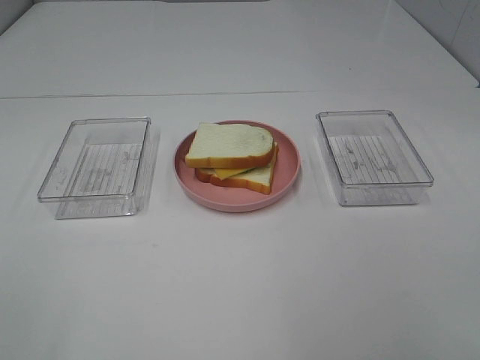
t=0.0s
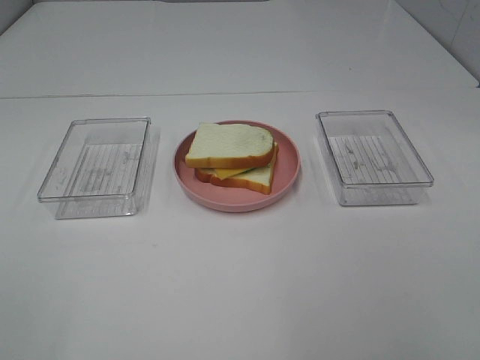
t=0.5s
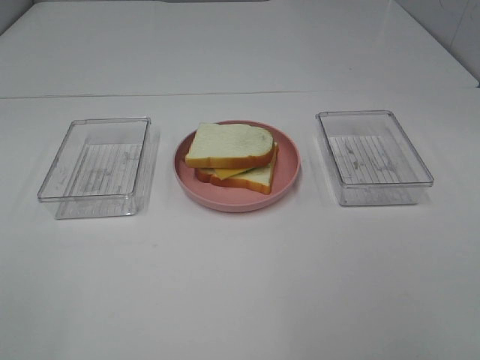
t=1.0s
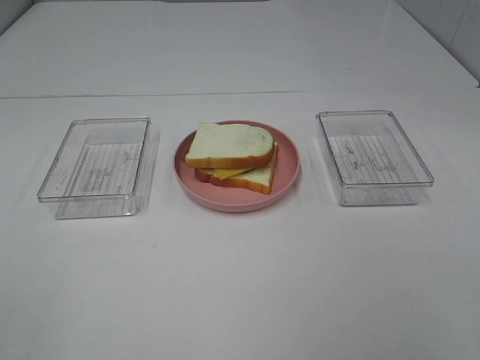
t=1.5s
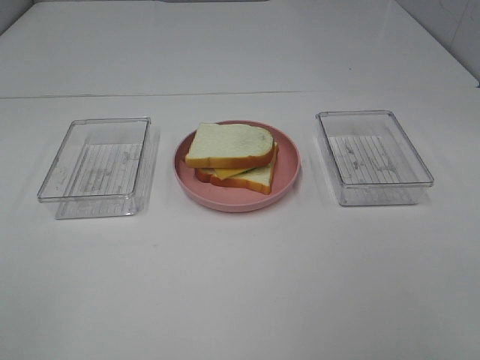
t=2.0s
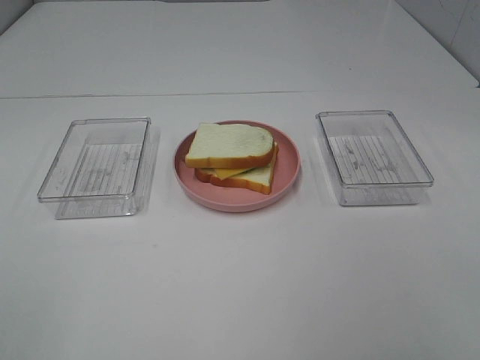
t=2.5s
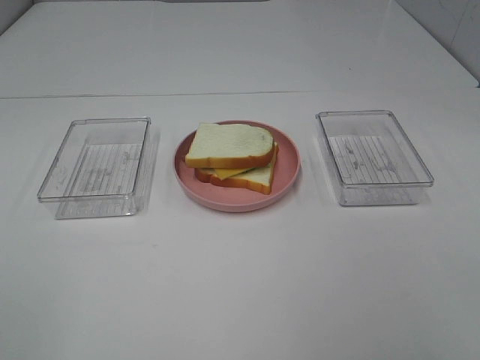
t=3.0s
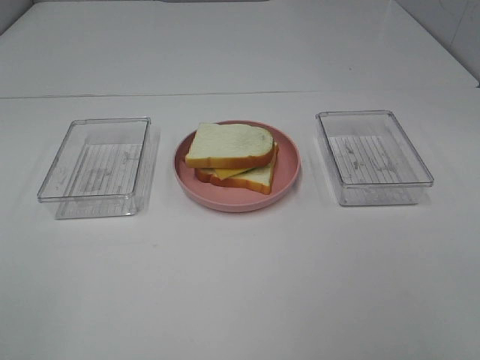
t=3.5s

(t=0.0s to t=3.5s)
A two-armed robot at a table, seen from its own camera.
Task of the whole recording: Make sandwiches.
t=2.0s - t=3.5s: The two grippers keep their place.

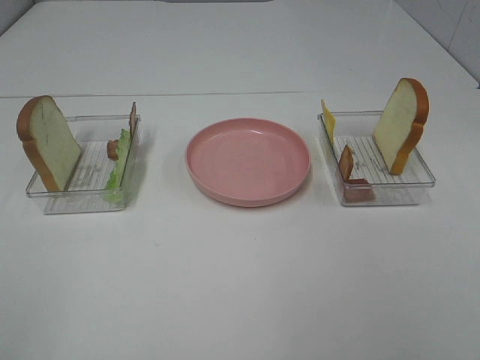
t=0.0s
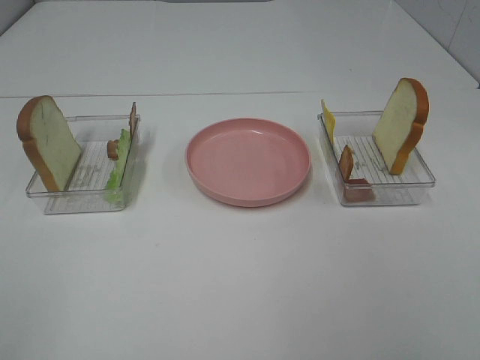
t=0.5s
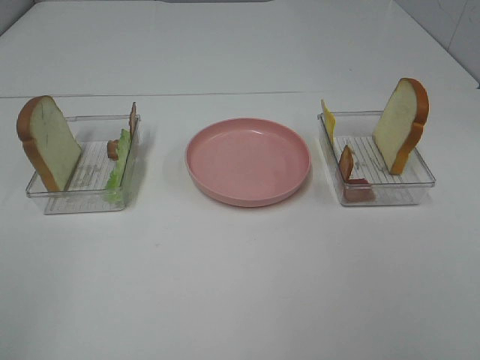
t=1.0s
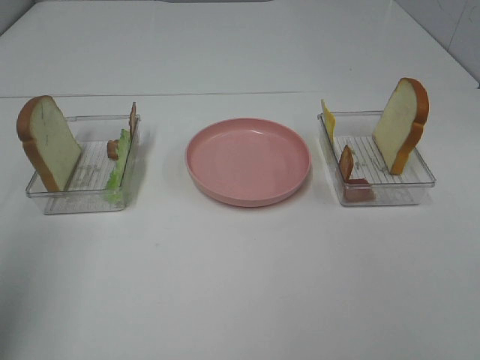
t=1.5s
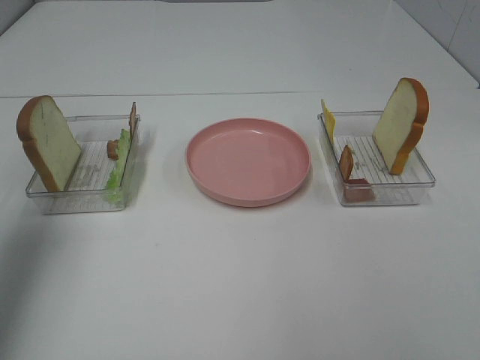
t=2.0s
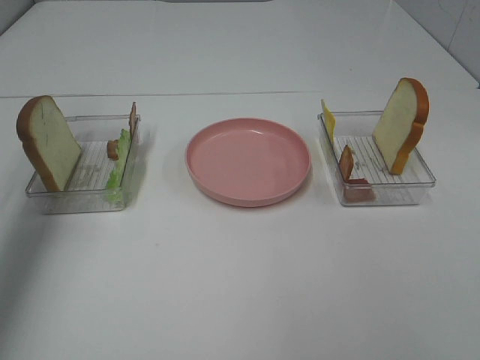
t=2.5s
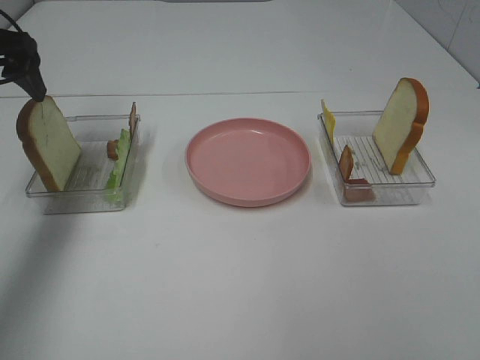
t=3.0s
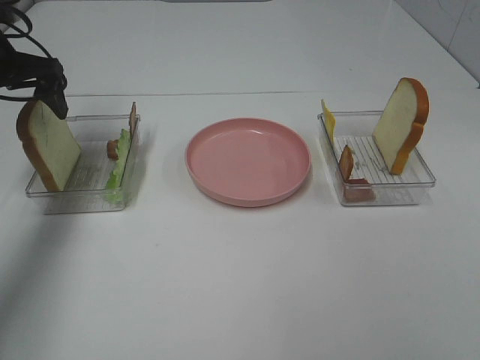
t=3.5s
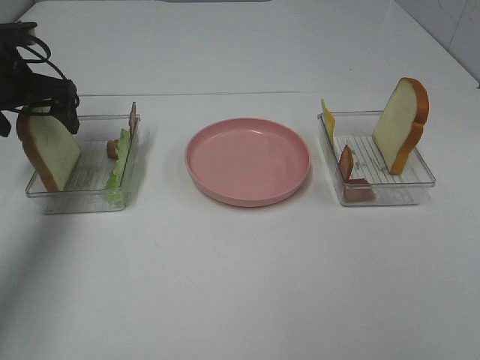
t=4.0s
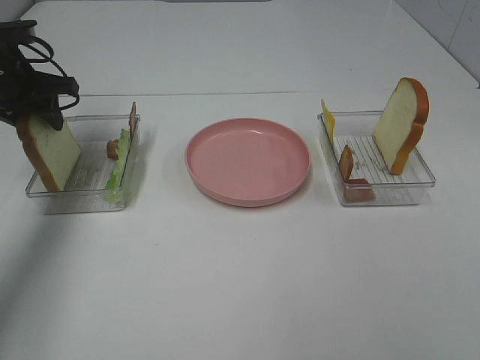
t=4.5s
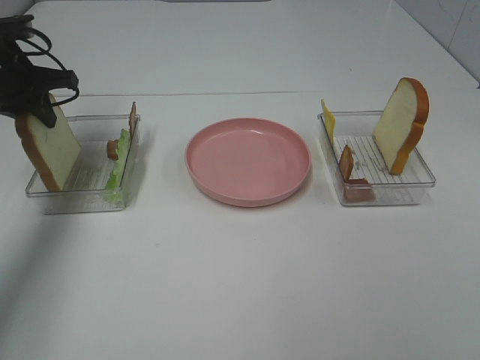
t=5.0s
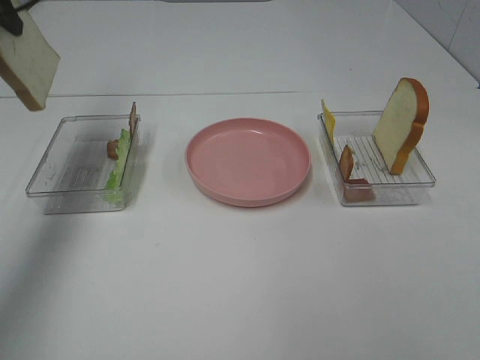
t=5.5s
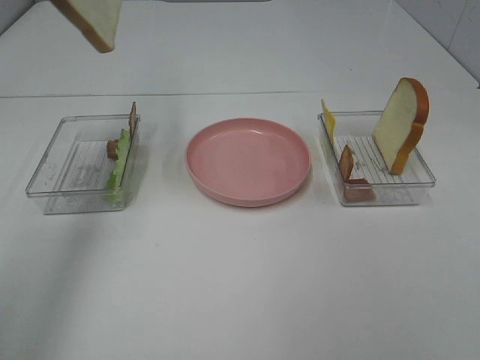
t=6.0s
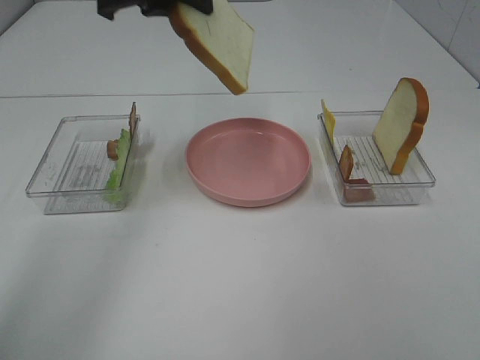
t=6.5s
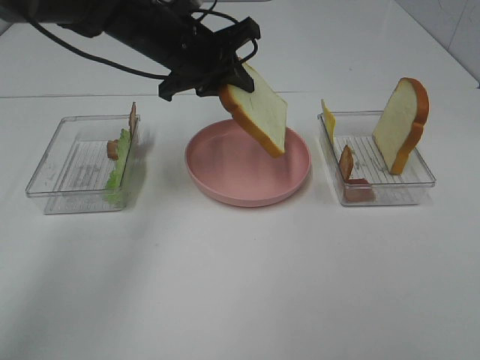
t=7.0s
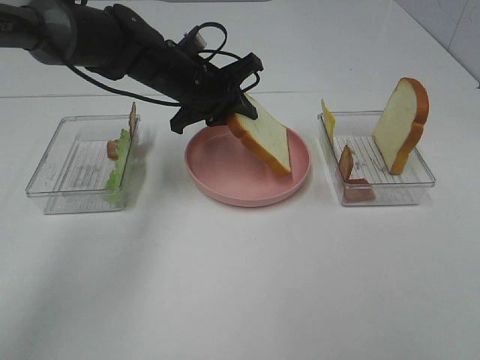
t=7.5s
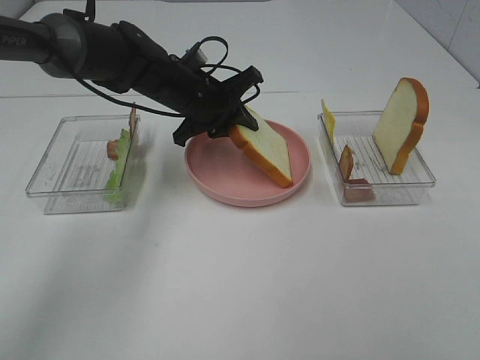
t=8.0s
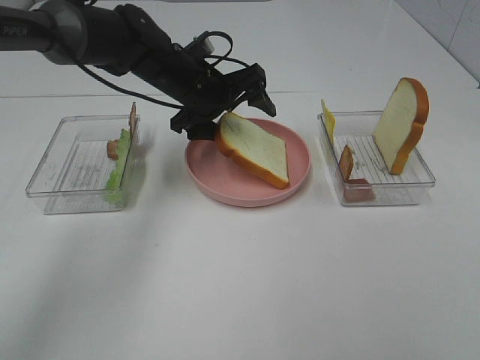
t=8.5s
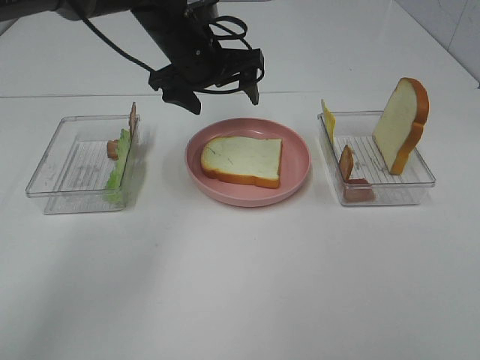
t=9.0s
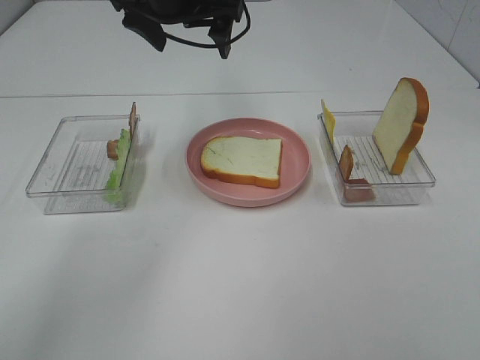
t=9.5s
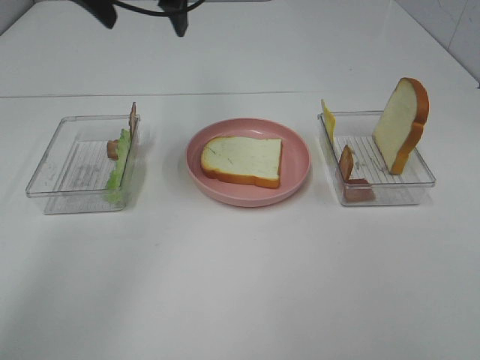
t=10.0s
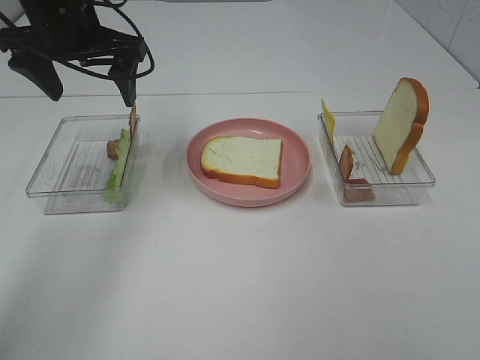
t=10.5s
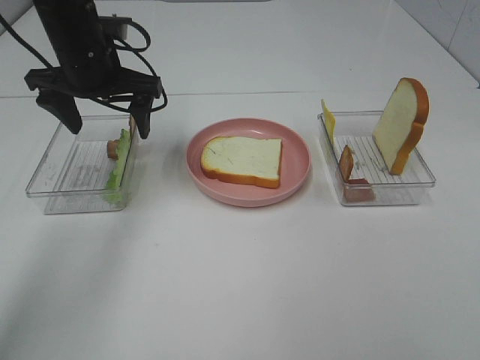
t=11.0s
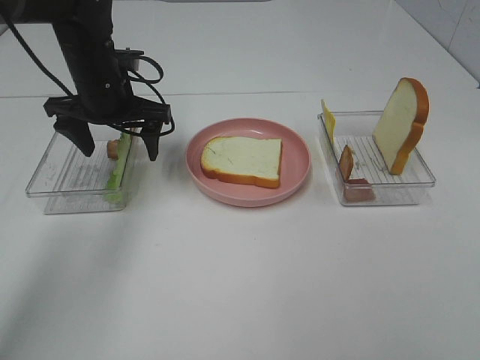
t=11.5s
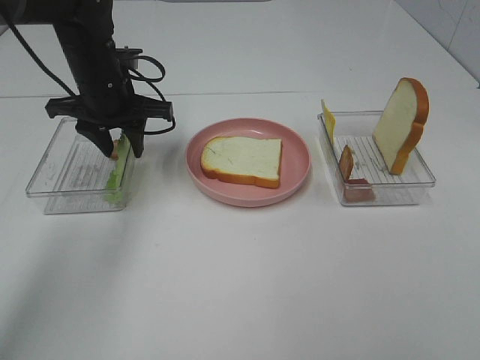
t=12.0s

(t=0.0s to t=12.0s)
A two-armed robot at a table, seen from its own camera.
Task of the whole recording: Make sandwiches.
Step, t=0.0s - t=4.5s: Left hand:grab the bread slice.
Step, t=5.0s - t=9.0s: Left hand:place the bread slice on the plate.
t=0.0s - t=2.0s: The left gripper travels forward by approximately 25 cm.
t=2.0s - t=4.0s: The left gripper moves forward and downward, some 25 cm.
t=4.0s - t=6.0s: The left gripper is displaced upward and to the right by roughly 20 cm, and closes.
t=6.0s - t=8.0s: The left gripper heads downward and to the right, covering some 30 cm.
t=8.0s - t=10.0s: The left gripper travels upward by about 20 cm, and opens.
t=10.0s - t=12.0s: The left gripper travels downward by roughly 15 cm, and closes.

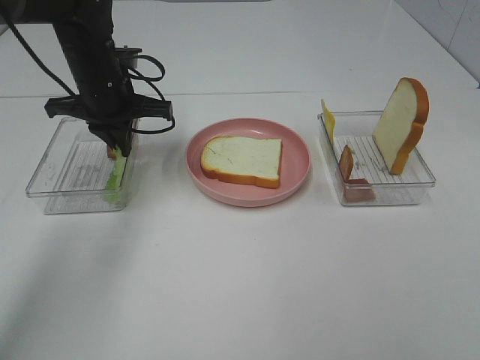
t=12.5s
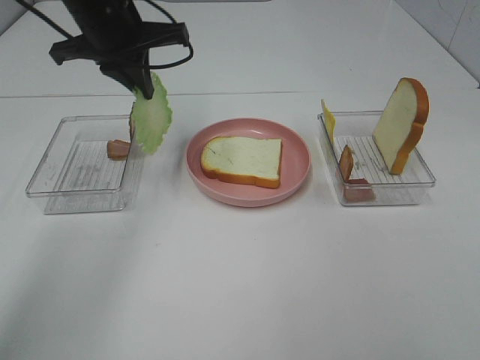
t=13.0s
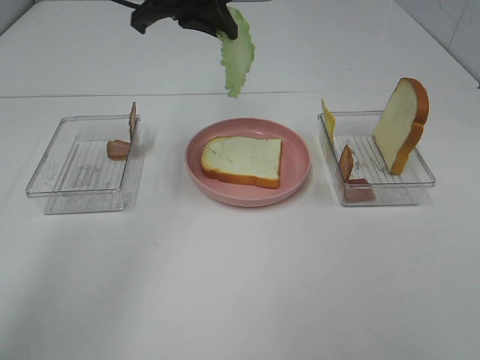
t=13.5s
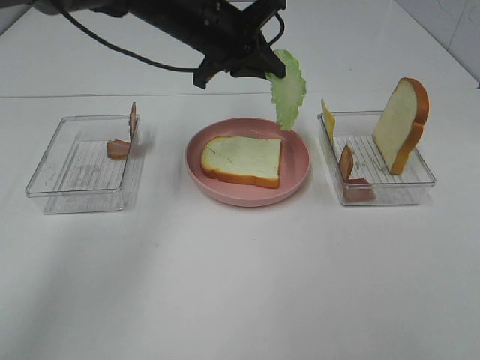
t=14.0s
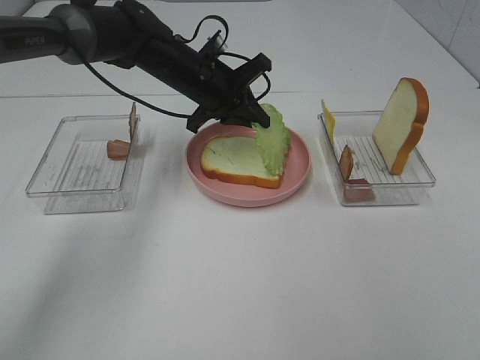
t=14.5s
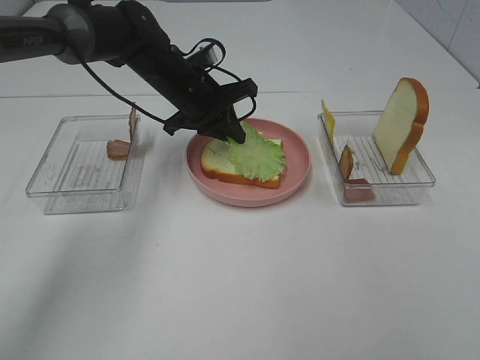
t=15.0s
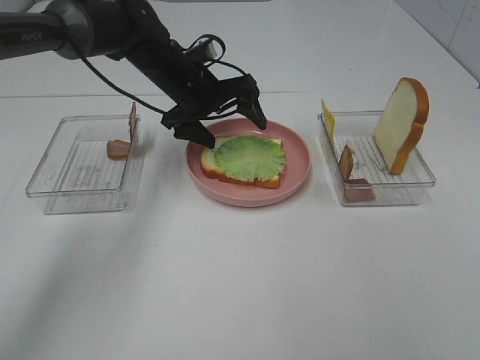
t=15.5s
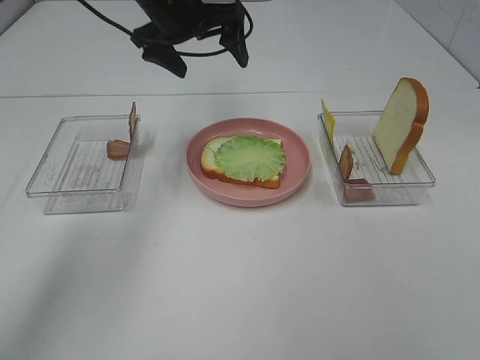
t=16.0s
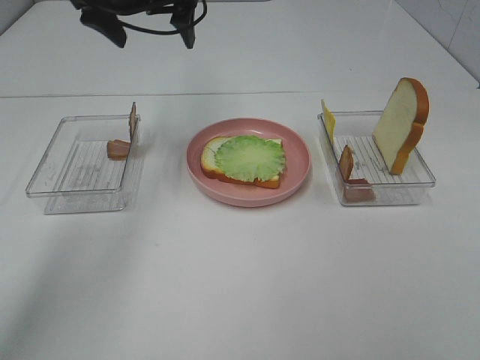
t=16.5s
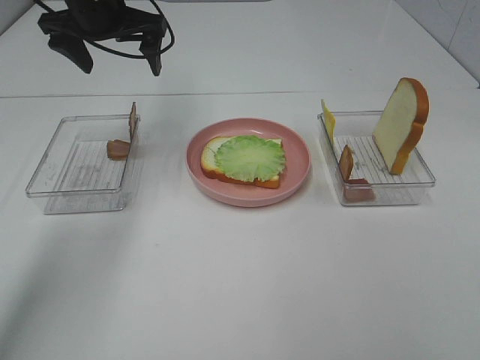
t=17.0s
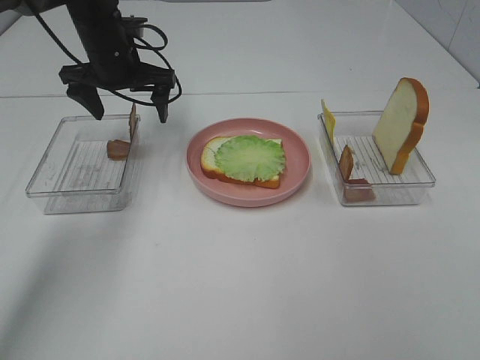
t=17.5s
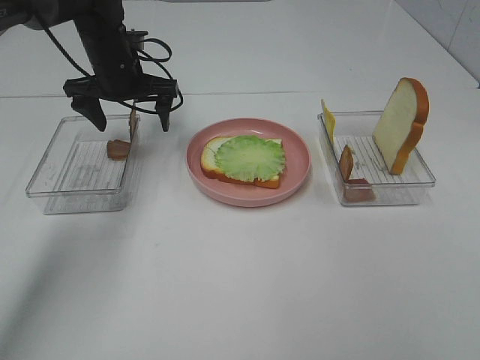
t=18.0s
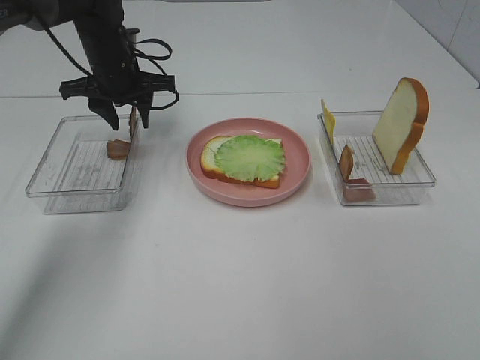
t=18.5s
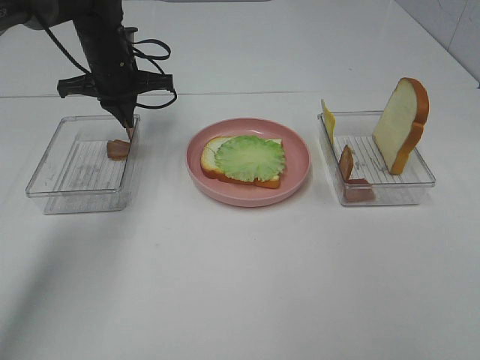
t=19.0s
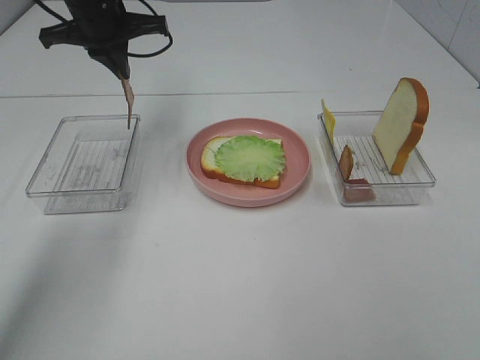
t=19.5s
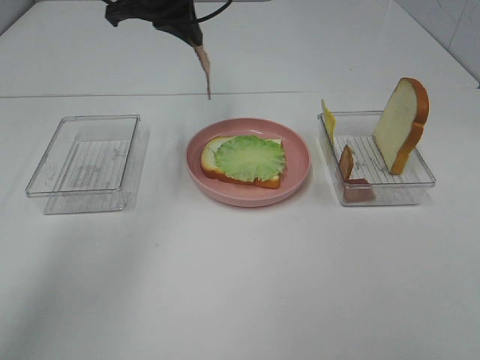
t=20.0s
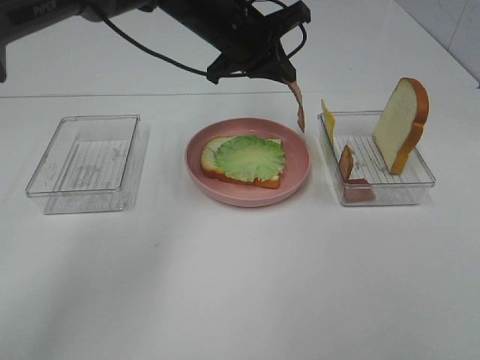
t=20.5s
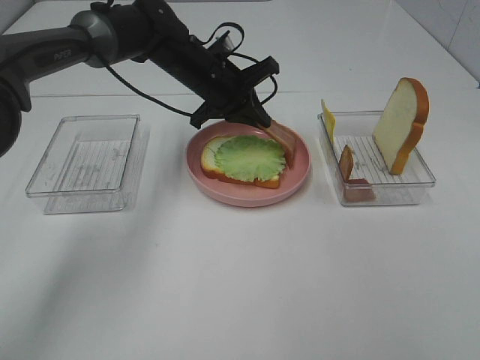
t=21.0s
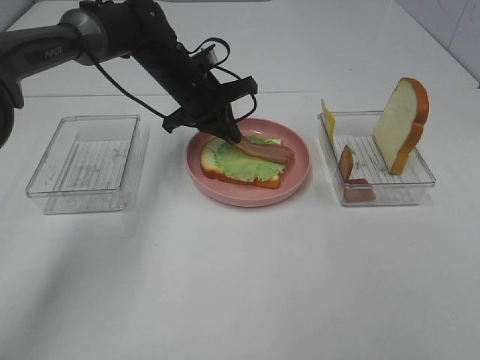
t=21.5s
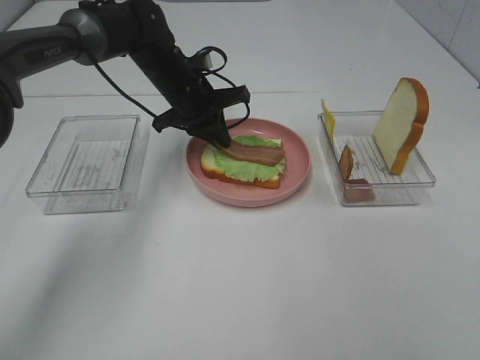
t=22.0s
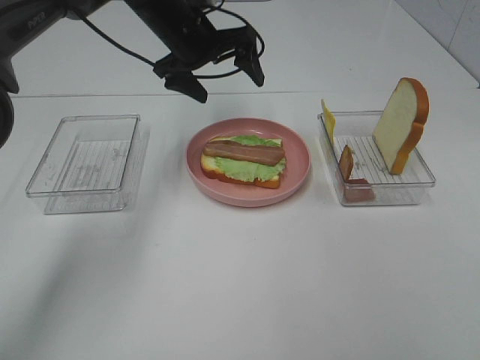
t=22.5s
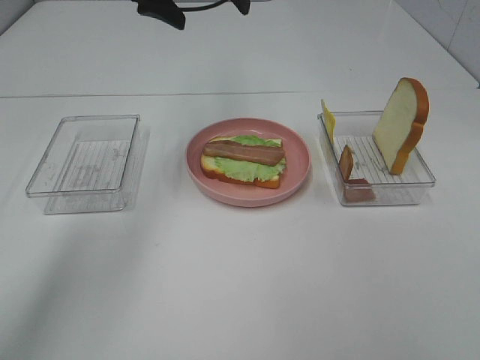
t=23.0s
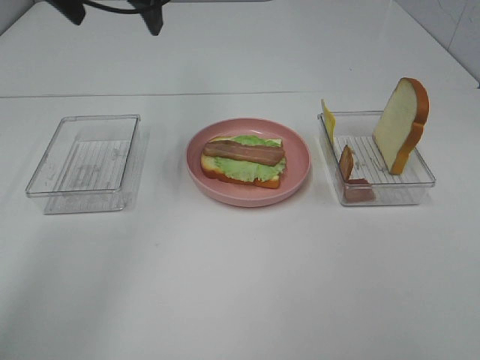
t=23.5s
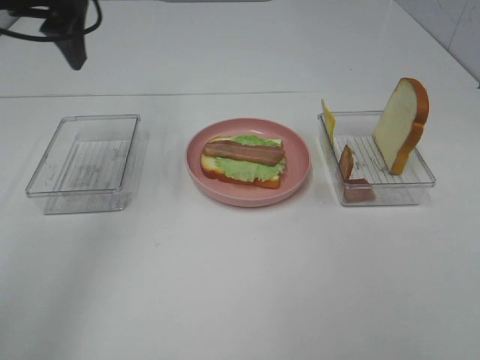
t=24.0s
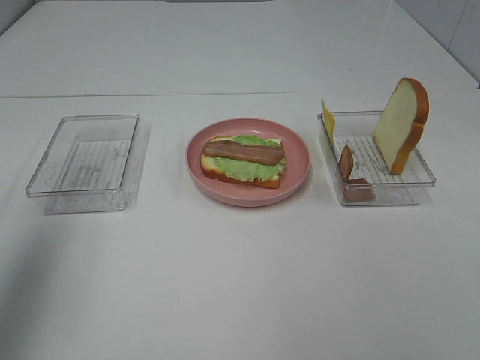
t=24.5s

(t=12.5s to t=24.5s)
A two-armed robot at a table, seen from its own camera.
Task of the whole recording: Make sandwiches.
Step, t=13.0s - t=15.5s: Left hand:place the lettuce slice on the bread slice.
Step, t=16.0s - t=19.0s: Left hand:grab the bacon.
Step, t=19.5s - t=22.0s: Left hand:place bacon on lettuce slice.
t=12.5s - t=14.5s: The left gripper moves to the right, roughly 10 cm, and moves about 15 cm upward and comes back.
t=14.5s - t=16.5s: The left gripper travels upward and to the left by roughly 15 cm, and opens.
t=16.5s - t=18.5s: The left gripper travels downward by some 15 cm, and closes its fingers.
t=18.5s - t=20.5s: The left gripper heads to the right, covering approximately 15 cm, and closes.
t=20.5s - t=22.5s: The left gripper goes some 5 cm to the left, goes downward and returns, roughly 10 cm each way, and opens its fingers.
t=22.5s - t=24.5s: The left gripper goes roughly 35 cm backward and to the left.
